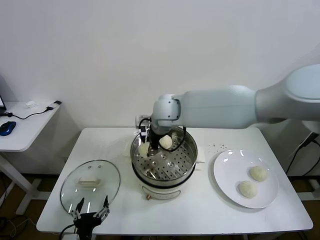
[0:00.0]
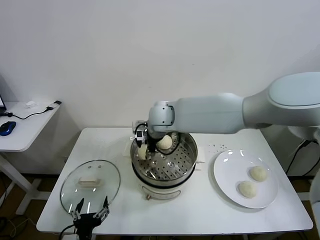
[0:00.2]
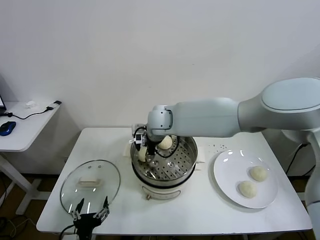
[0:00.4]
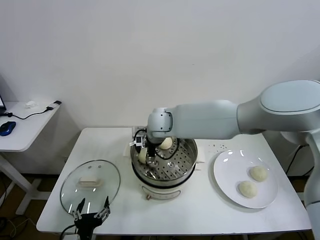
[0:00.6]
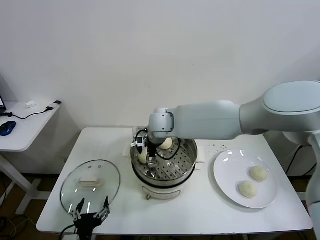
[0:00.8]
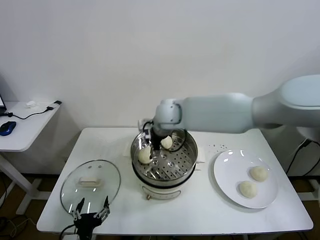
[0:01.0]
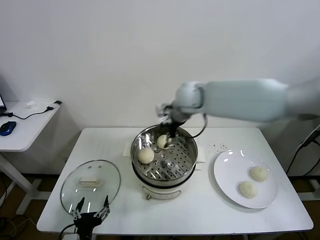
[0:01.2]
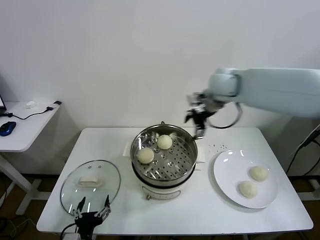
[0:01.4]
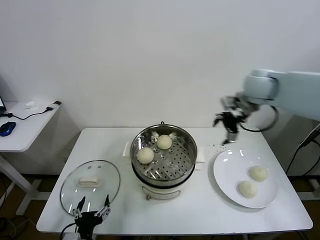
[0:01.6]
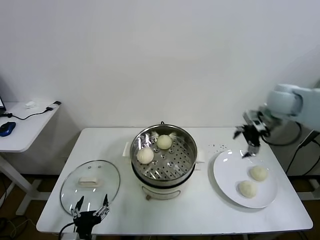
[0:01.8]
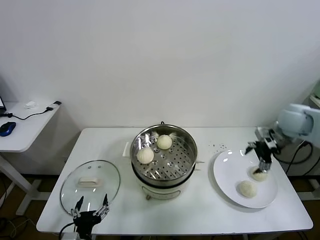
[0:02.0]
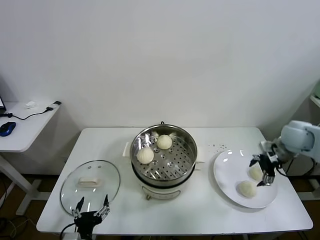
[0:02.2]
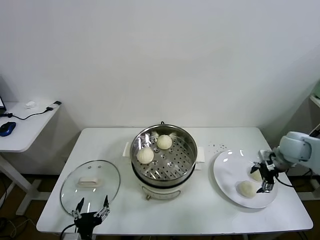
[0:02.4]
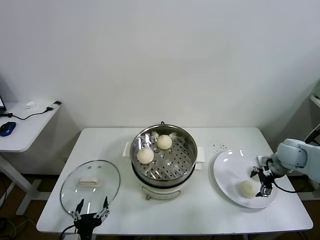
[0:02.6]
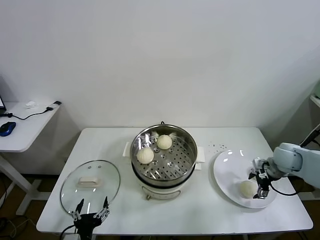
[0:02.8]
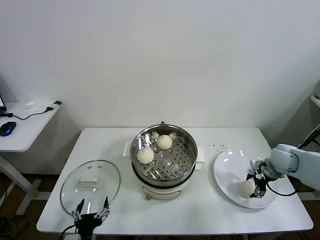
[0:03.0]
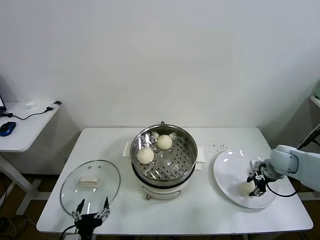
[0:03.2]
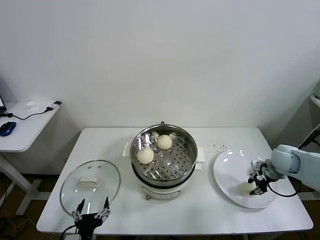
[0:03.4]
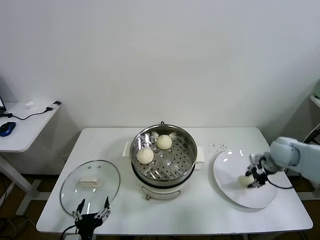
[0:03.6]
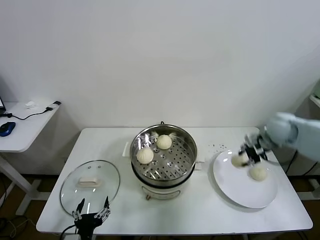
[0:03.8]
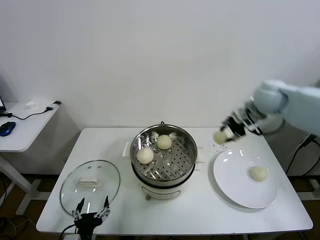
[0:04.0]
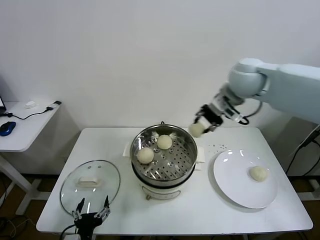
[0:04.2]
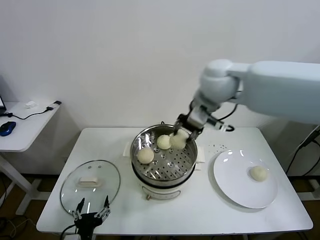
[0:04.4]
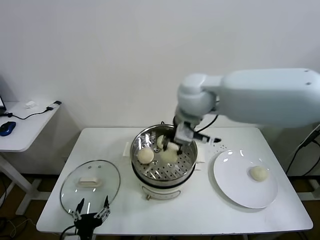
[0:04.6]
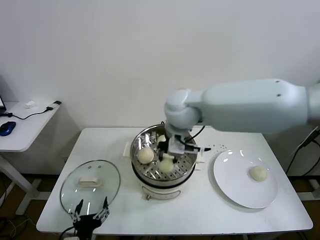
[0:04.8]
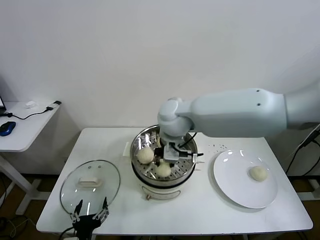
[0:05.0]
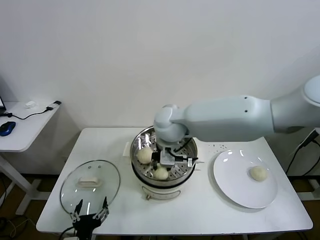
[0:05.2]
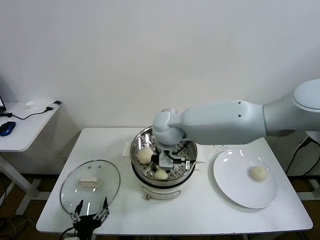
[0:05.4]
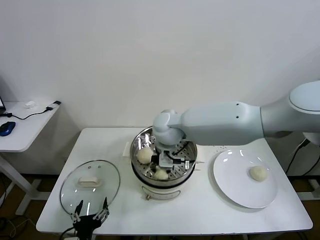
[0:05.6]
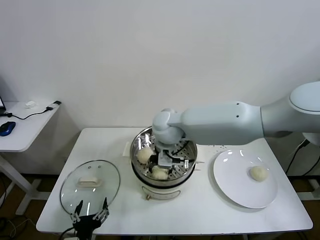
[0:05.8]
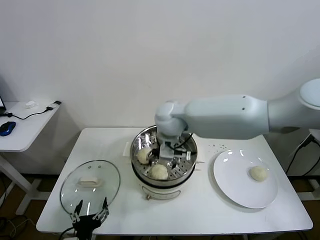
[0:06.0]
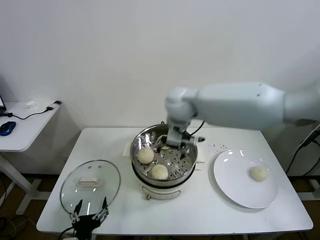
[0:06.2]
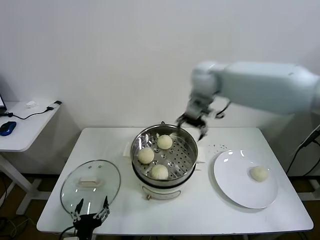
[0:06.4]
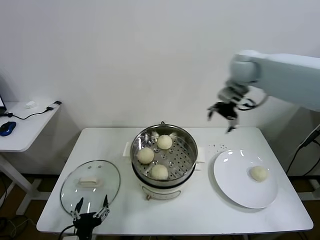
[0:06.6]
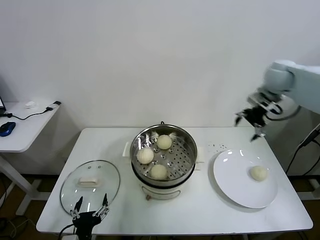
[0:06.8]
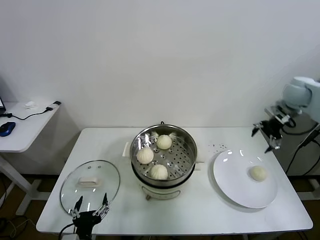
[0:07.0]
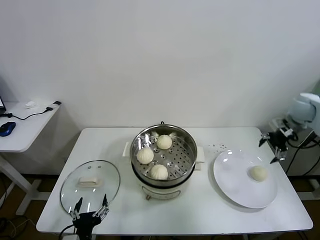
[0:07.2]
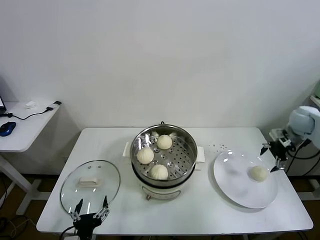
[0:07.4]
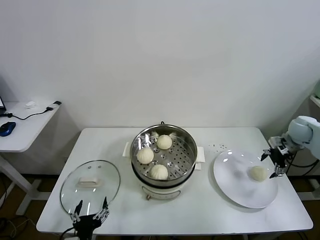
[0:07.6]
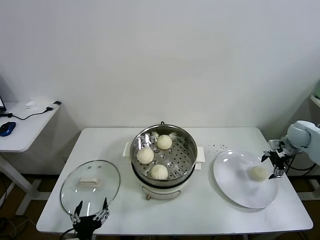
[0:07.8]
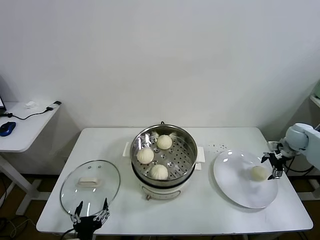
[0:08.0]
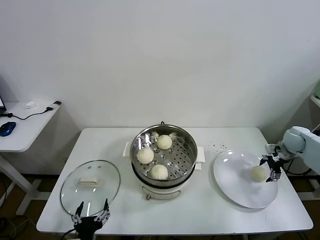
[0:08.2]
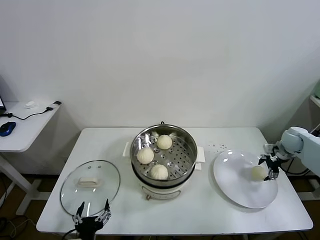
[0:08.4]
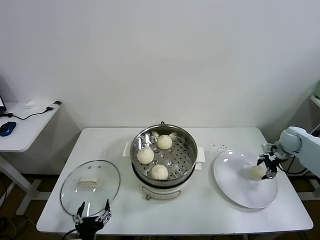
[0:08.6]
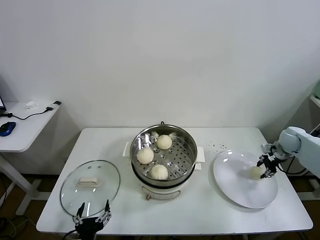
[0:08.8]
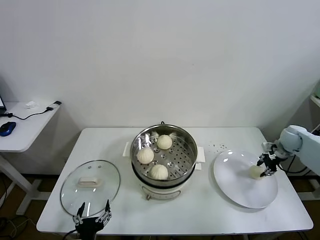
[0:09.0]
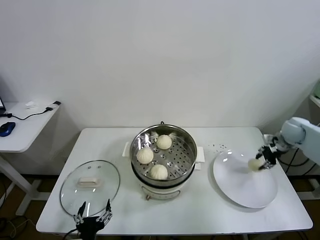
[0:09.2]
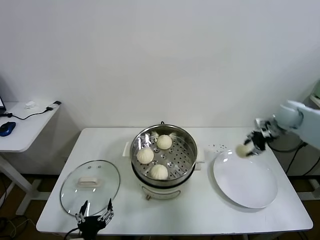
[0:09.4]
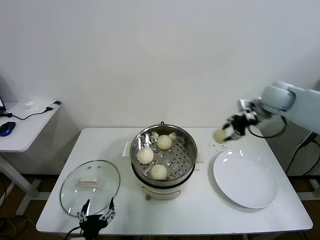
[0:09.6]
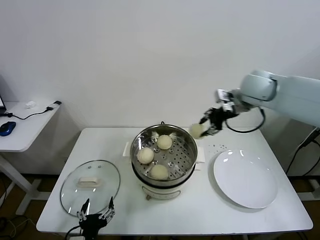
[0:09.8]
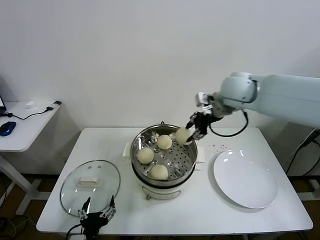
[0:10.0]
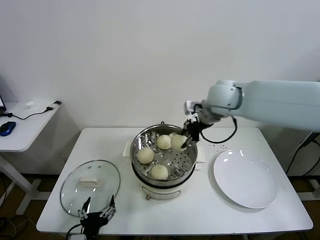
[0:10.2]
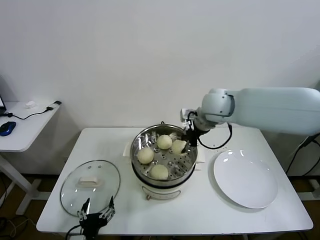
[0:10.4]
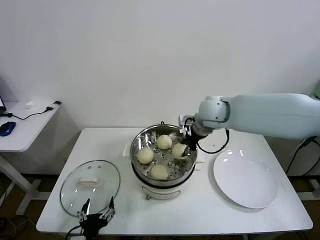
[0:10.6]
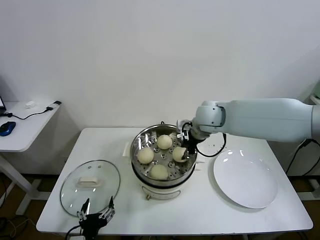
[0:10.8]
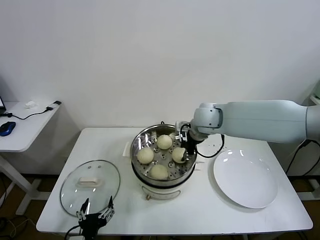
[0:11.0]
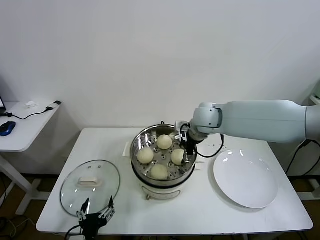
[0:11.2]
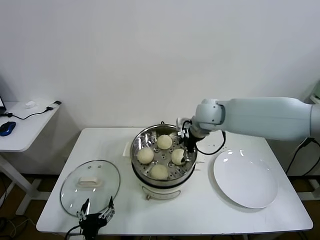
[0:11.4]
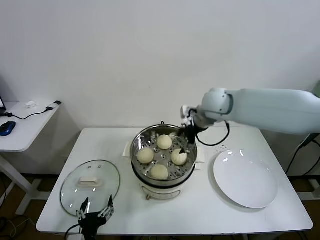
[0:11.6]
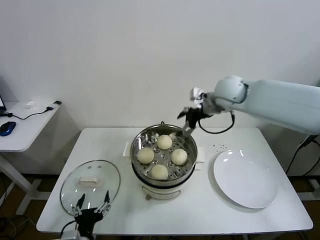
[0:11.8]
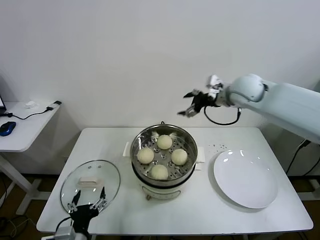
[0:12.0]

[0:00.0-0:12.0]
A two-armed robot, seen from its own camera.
Task of the whole recording: take steamed baozi put them in steamer.
Step, 0:01.0 to 0:03.2: Grasp the baozi in the plate with right gripper.
Step, 0:03.4 to 0:05.8: Place the baozi on the steamer with right gripper.
Step, 0:06.0 to 0:08.8: Grasp the baozi in the plate with right gripper.
Step, 0:09.0 to 0:11.2: Place the baozi on the steamer with right gripper.
0:00.0 to 0:01.6: The right gripper is displaced to the right by approximately 30 cm, and opens.
0:01.6 to 0:03.0: The right gripper goes roughly 25 cm downward and to the right.
0:03.0 to 0:04.4: The right gripper shifts approximately 40 cm to the left and upward, and closes its fingers.
0:04.4 to 0:06.0: The right gripper moves downward and to the left, about 15 cm, and opens up.
0:06.0 to 0:07.6: The right gripper travels to the right by approximately 50 cm.
0:07.6 to 0:09.0: The right gripper closes.
0:09.0 to 0:10.4: The right gripper moves to the left and upward, about 40 cm.
0:10.4 to 0:12.0: The right gripper goes approximately 10 cm to the right, and opens its fingers.

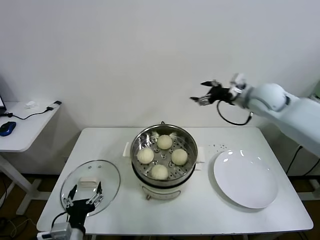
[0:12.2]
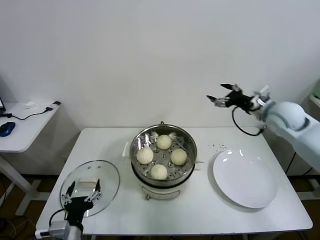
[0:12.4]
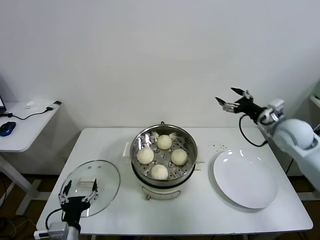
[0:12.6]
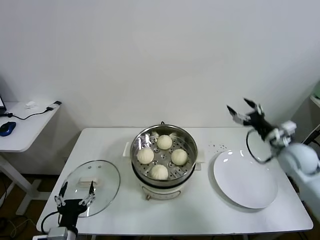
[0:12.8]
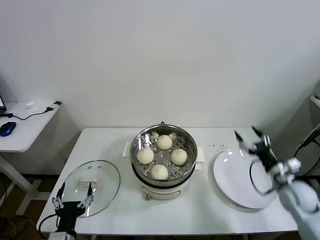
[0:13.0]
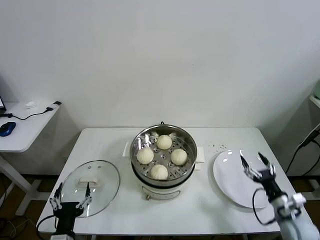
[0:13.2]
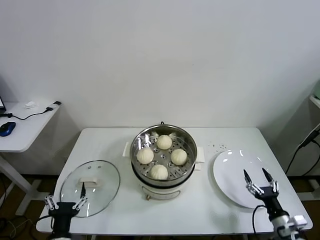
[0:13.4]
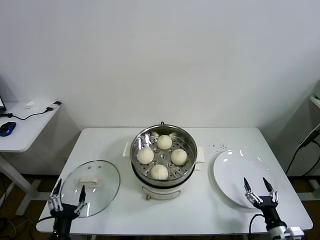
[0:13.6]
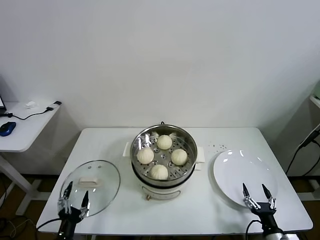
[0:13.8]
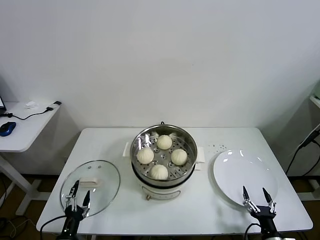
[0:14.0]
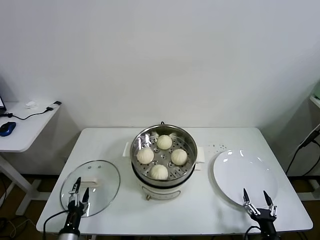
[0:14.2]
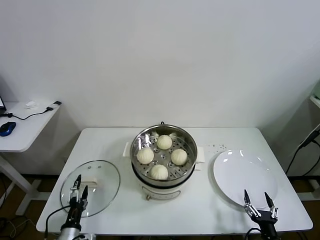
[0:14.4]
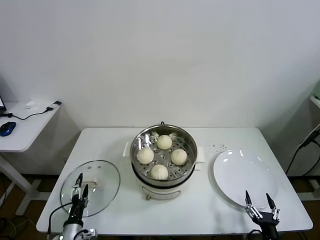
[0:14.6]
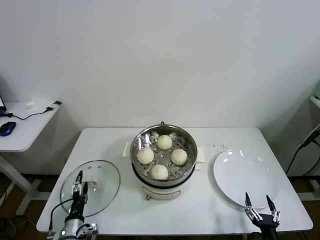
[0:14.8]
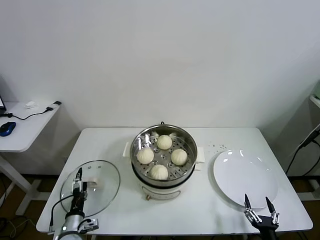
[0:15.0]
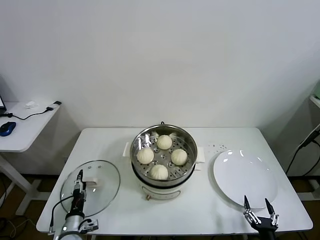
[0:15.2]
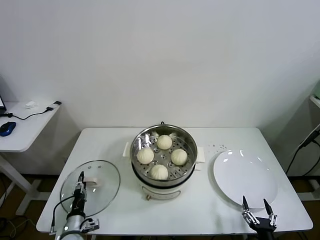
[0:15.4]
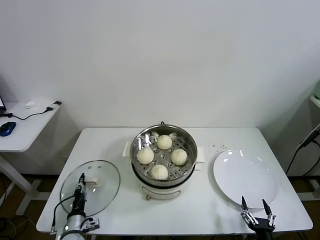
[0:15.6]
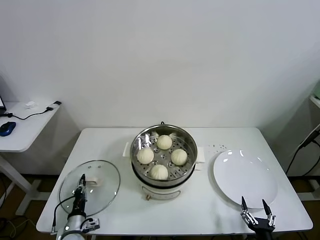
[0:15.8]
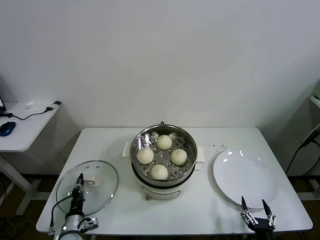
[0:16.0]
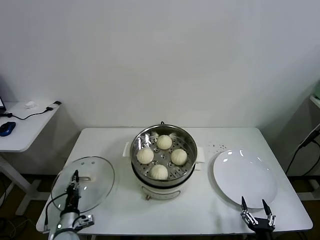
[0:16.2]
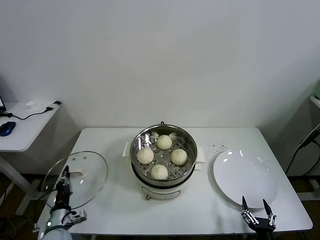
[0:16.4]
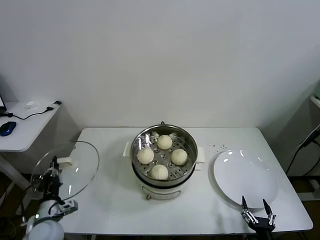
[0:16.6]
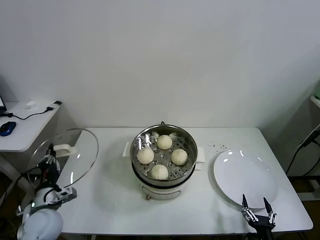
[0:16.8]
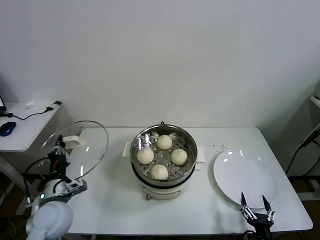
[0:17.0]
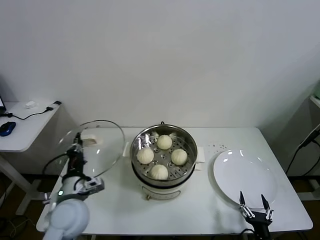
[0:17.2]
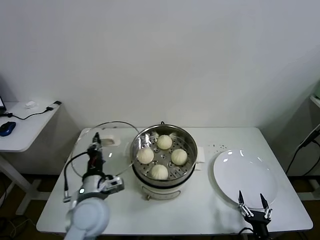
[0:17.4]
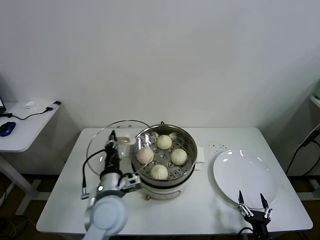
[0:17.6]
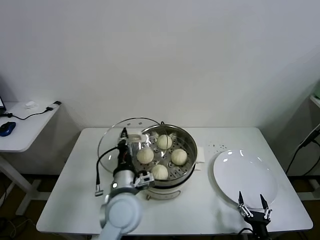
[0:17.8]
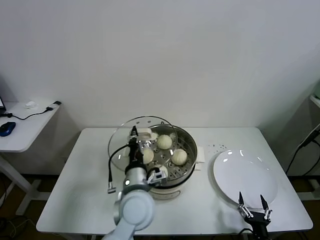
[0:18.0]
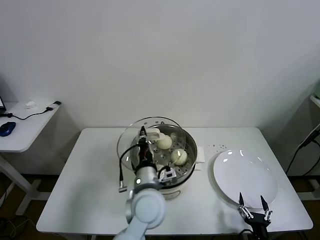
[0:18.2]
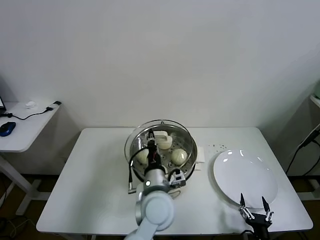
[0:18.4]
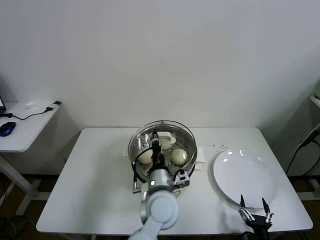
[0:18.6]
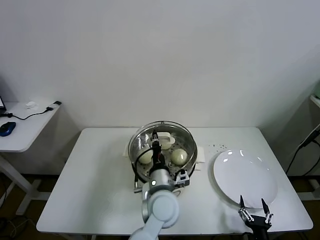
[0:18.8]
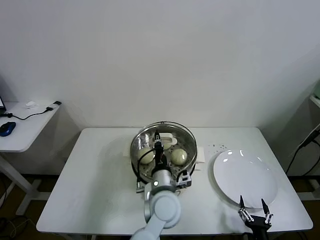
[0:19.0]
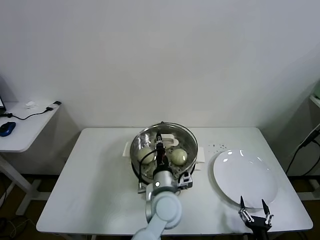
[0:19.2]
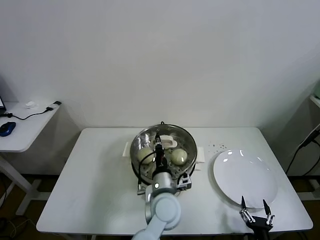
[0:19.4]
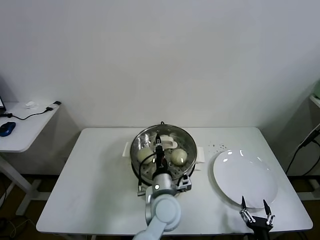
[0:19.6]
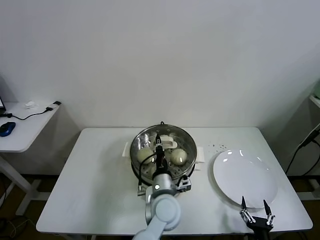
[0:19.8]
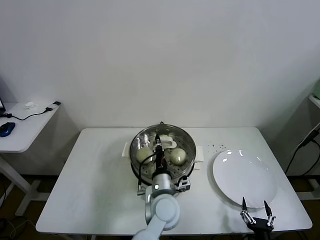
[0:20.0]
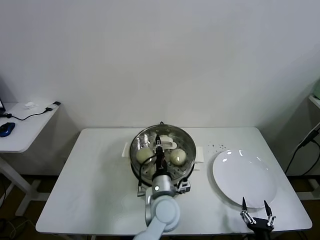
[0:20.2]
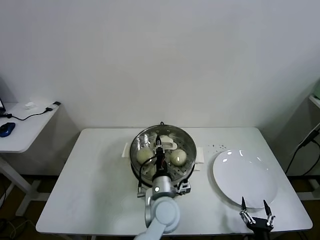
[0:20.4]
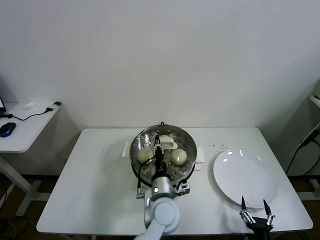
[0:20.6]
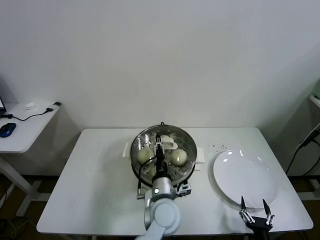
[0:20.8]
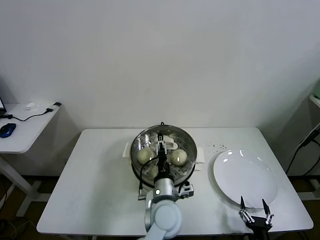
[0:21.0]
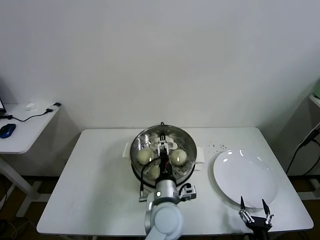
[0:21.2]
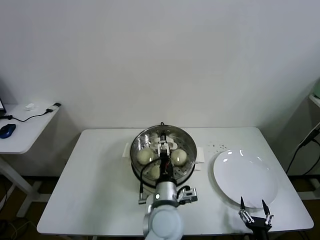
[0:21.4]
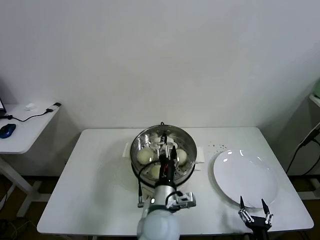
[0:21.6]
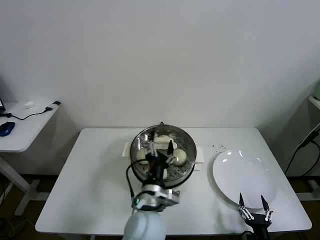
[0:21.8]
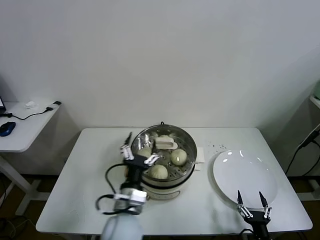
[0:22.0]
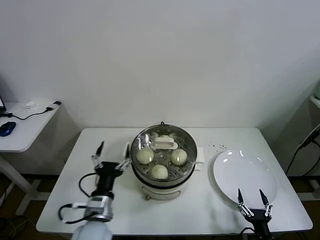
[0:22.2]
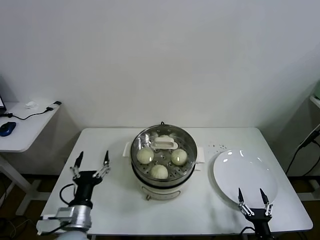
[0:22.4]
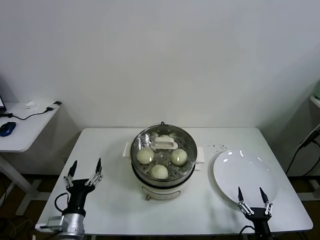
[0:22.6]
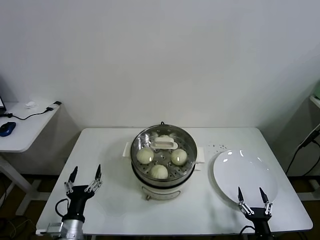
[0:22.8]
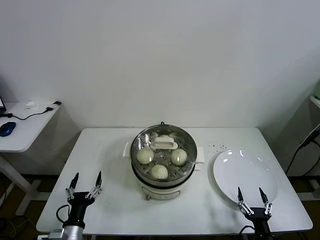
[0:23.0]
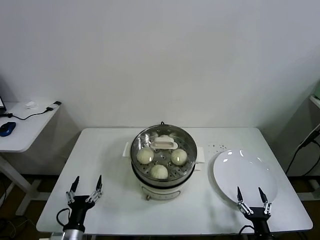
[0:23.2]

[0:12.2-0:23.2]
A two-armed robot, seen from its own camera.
Task of the whole recording: take steamed baozi put them in steamer.
Step, 0:12.2 to 0:15.8: Grasp the pot lid with left gripper.
Step, 0:16.0 to 0:21.2: Place the pot lid on the steamer with left gripper.
0:12.2 to 0:13.8: The right gripper heads downward and backward, covering about 50 cm, while the left gripper is displaced downward and to the left by some 10 cm.
0:13.8 to 0:15.4: The left gripper shifts approximately 15 cm forward and downward, and closes its fingers; the right gripper ends up some 5 cm from where it was.
0:15.4 to 0:17.0: The left gripper travels upward by about 20 cm, and closes up.
0:17.0 to 0:18.4: The left gripper heads to the right, covering some 30 cm.
0:18.4 to 0:20.0: The left gripper heads downward, covering some 5 cm.
0:20.0 to 0:21.6: The left gripper heads backward, covering some 5 cm, and opens up.
0:21.6 to 0:23.2: The left gripper goes about 30 cm to the left and downward.
